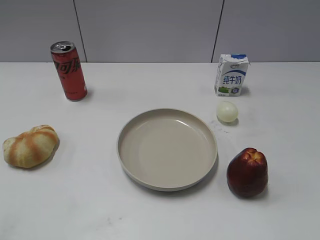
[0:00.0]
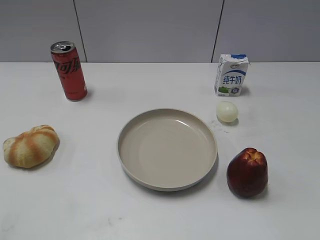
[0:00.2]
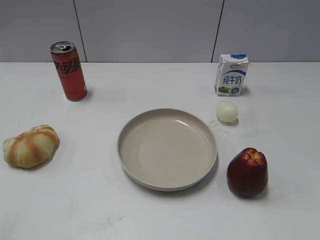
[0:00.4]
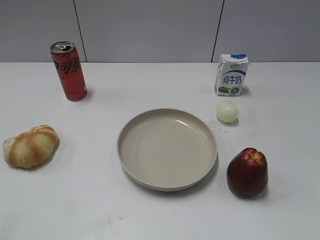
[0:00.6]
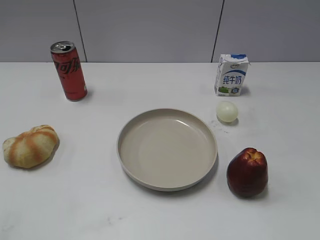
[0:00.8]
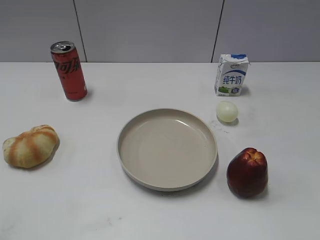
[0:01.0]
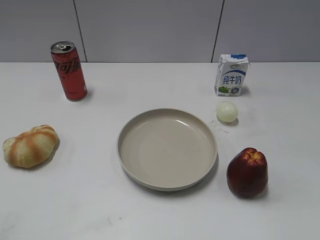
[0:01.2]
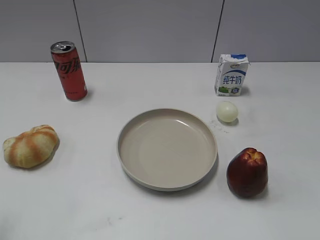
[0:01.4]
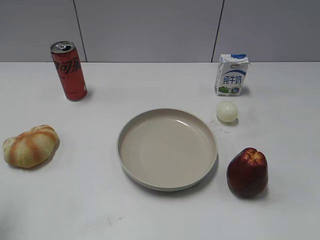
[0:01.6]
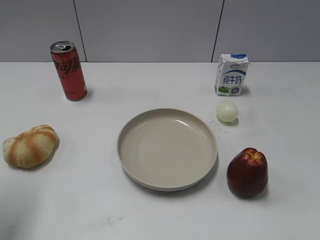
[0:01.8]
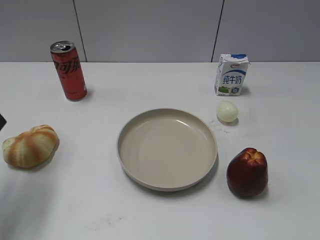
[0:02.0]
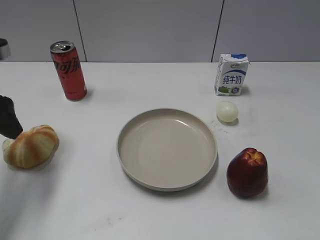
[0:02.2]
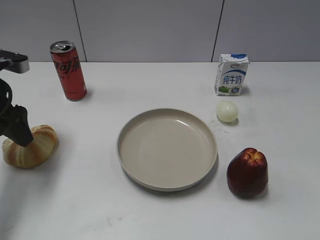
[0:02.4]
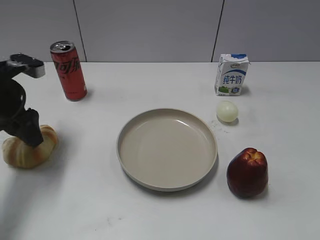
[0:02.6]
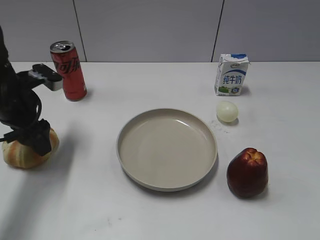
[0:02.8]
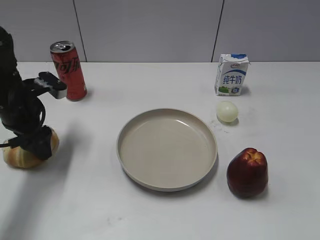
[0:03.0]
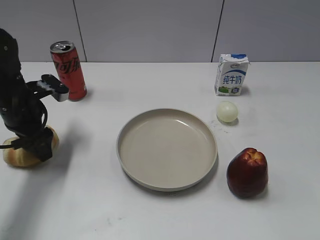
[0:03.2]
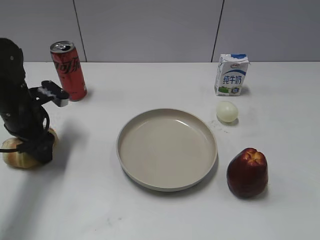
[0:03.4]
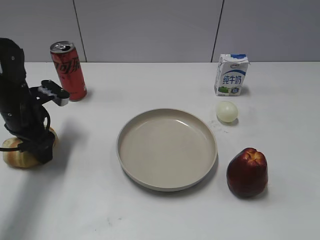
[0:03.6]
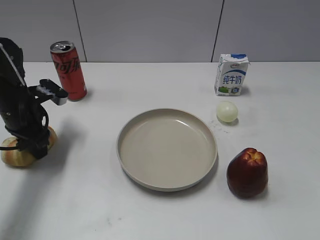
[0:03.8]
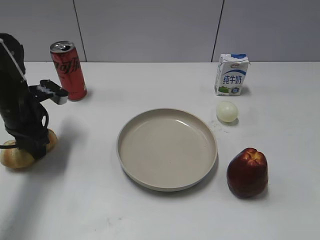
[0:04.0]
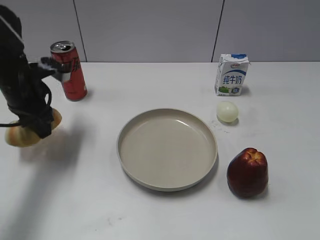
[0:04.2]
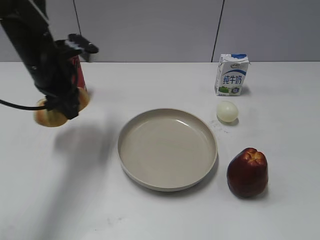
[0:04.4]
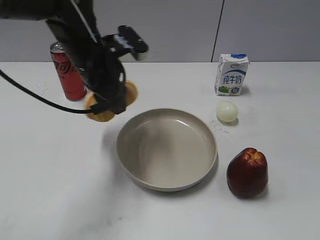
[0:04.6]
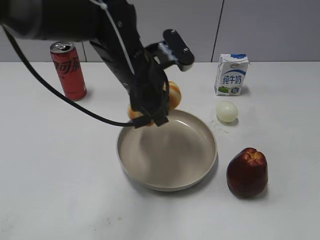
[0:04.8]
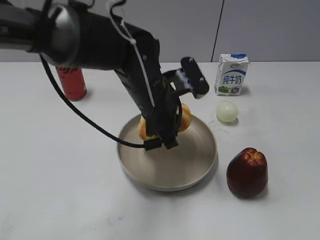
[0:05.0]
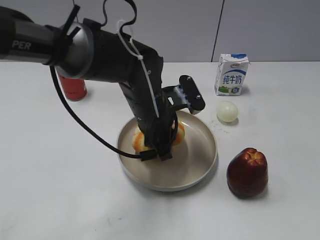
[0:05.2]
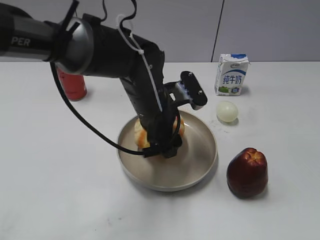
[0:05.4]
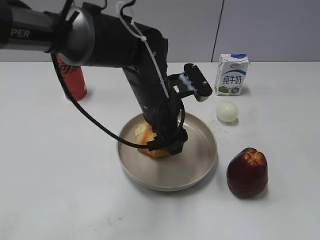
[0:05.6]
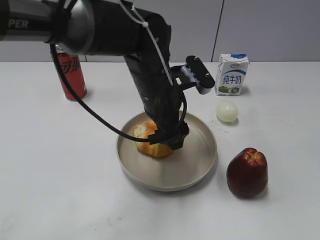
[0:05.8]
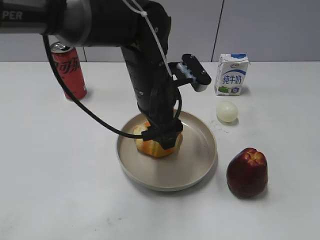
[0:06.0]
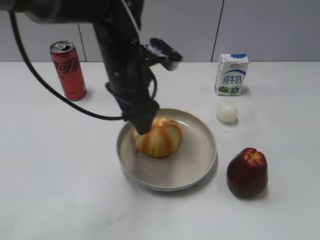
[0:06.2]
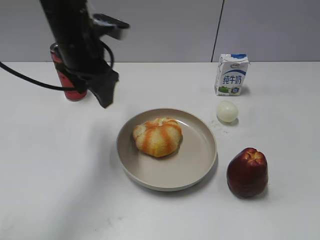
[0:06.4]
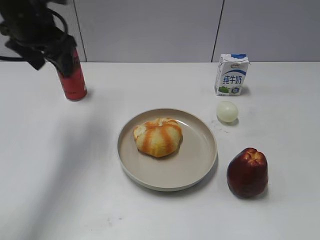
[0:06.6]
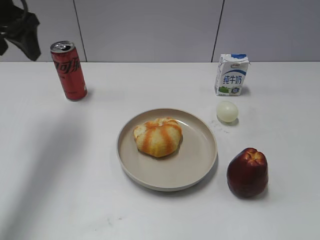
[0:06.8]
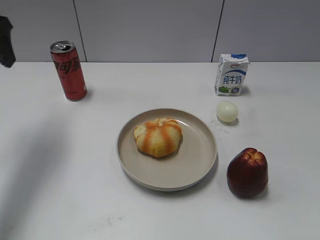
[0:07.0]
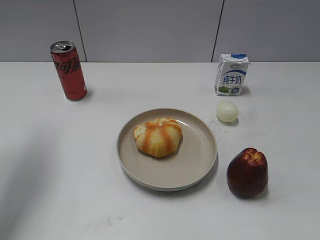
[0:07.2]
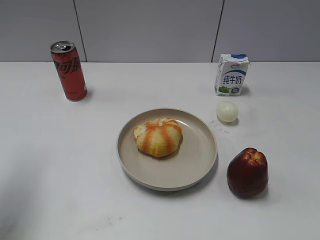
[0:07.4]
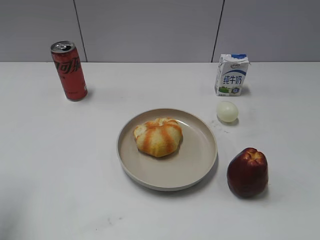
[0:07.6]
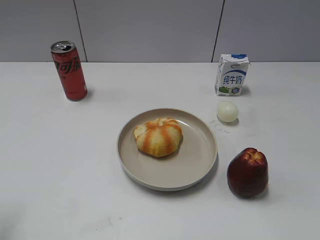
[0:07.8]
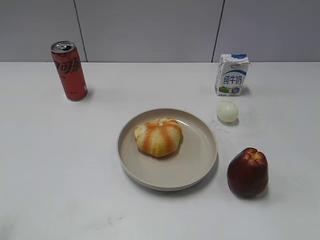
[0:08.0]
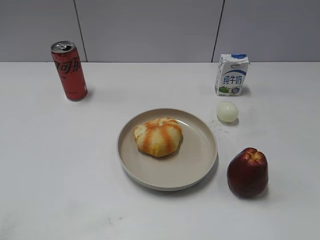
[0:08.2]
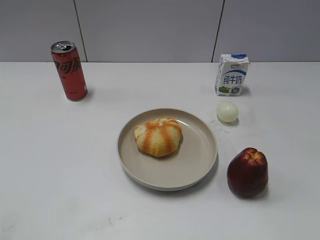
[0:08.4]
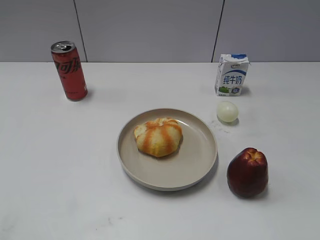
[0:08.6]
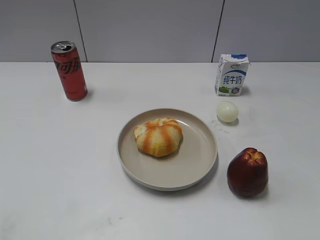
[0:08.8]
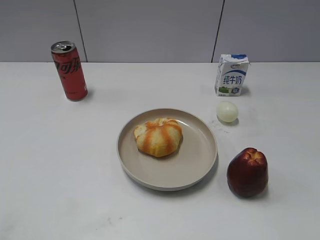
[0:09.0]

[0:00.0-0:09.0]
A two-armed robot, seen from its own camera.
Step, 0:01.0 to 0:03.8: Grasp the round bread with left gripper.
Step, 0:04.0 to 0:06.2: Place the round bread on the plate with left gripper.
0:01.6 to 0:03.0: The left gripper heads forward, downward and to the right, covering approximately 25 cm.
0:03.0 to 0:04.4: The left gripper shifts some 10 cm to the right and upward, and closes.
0:04.4 to 0:06.0: The left gripper moves to the right, some 15 cm, and opens its fingers.
0:06.0 to 0:07.6: The left gripper goes roughly 30 cm to the left and backward.
0:07.6 to 0:09.0: The left gripper is displaced backward by some 15 cm.

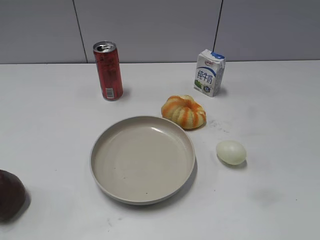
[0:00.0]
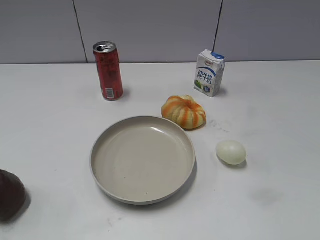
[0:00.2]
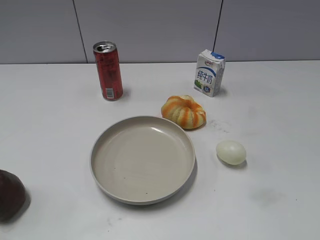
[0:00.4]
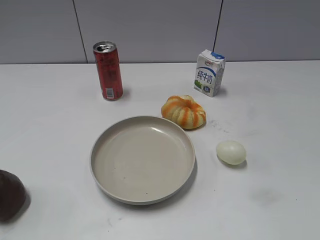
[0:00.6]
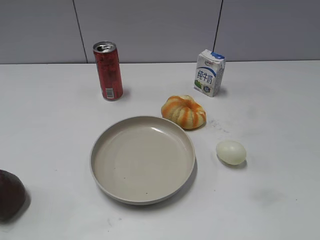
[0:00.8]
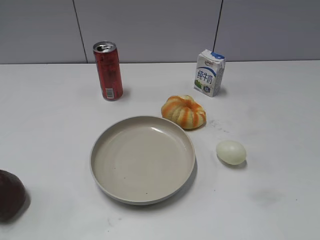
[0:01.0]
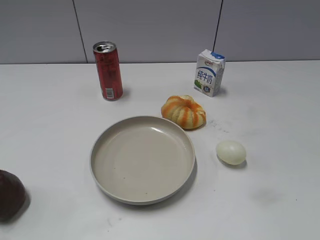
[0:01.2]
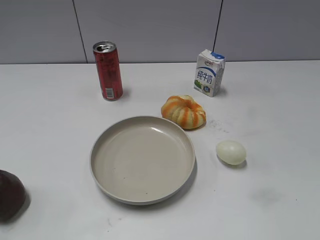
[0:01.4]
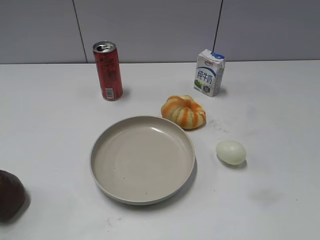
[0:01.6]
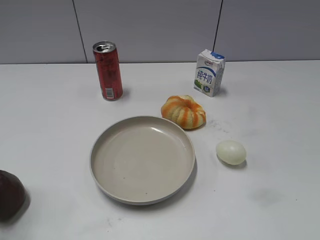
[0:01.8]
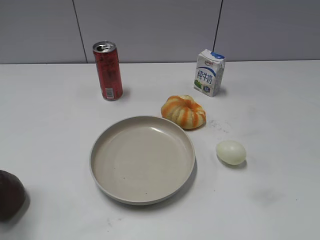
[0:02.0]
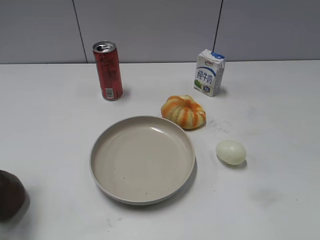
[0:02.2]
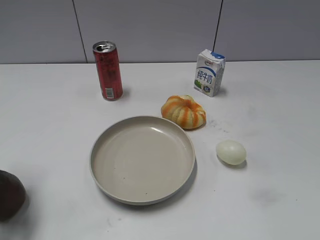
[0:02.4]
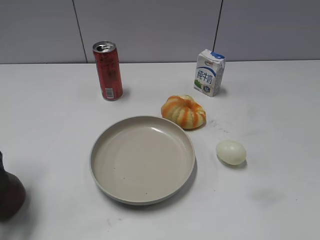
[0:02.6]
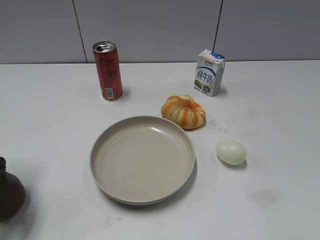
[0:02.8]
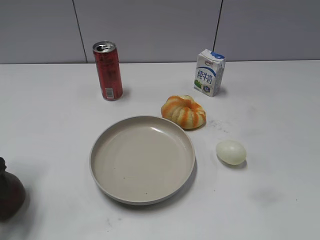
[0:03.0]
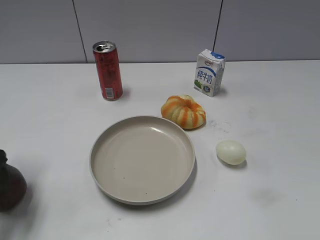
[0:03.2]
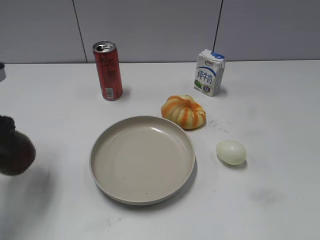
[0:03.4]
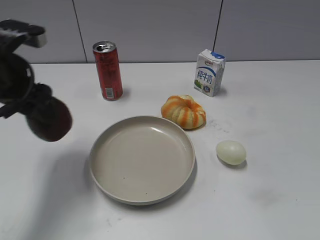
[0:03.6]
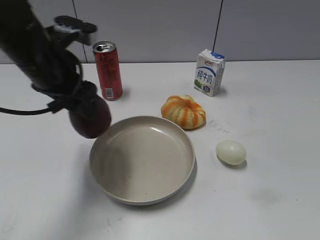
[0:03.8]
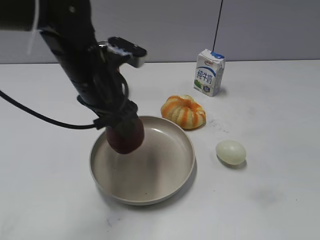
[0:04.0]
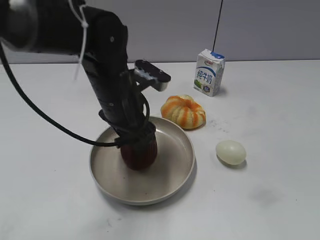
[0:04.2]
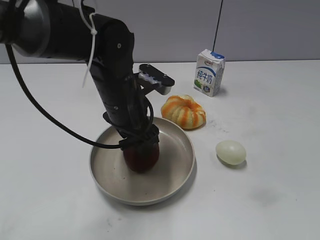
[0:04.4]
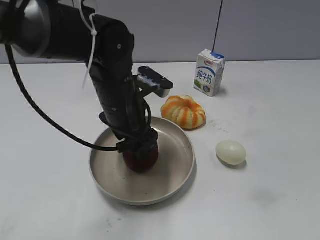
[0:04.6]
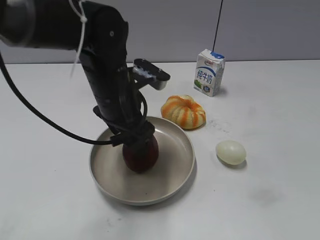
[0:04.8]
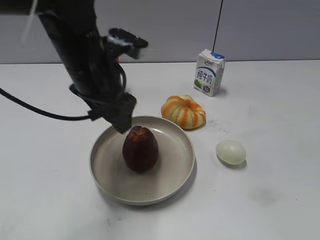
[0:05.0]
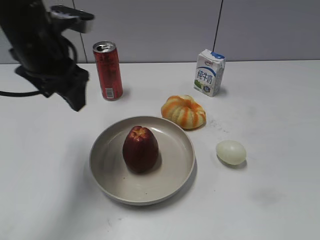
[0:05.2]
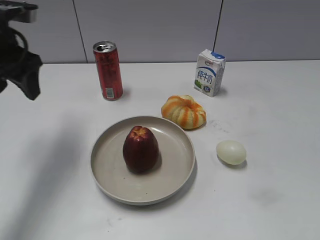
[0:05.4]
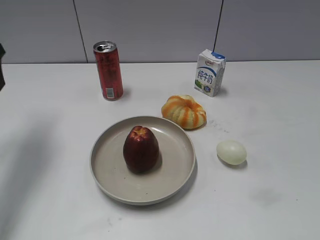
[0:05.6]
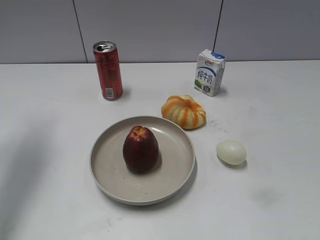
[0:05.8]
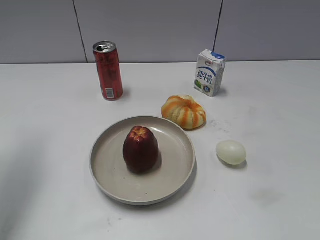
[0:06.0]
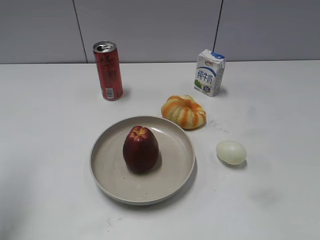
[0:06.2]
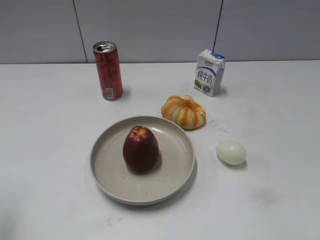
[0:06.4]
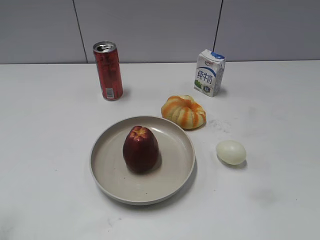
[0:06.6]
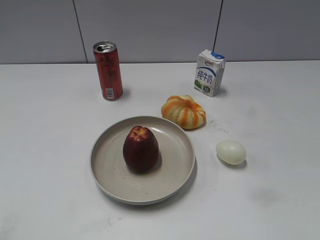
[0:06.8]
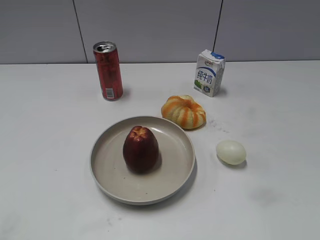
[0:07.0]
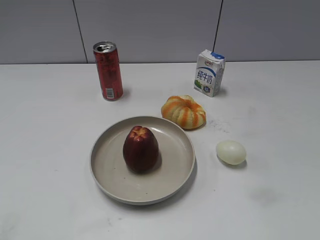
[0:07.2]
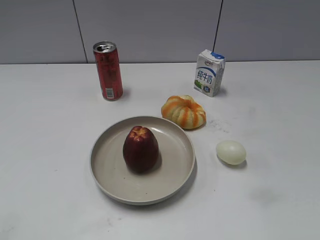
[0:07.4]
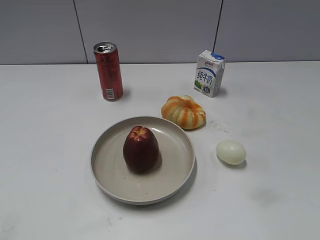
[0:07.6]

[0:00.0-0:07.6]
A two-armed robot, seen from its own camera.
Step, 0:03.2 to 0:04.8: Place the apple on the plate with left gripper.
0:01.6 to 0:03.0: The left gripper shifts roughly 15 cm forward and downward, and closes.
0:03.0 to 0:04.6: The left gripper shifts roughly 25 cm to the right, and opens its fingers.
0:04.6 to 0:06.0: The left gripper shifts roughly 30 cm to the left and upward, and closes.
0:06.0 to 0:07.6: The left gripper shifts some 30 cm backward.
